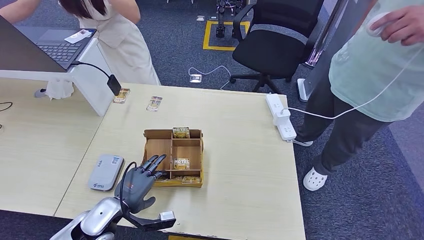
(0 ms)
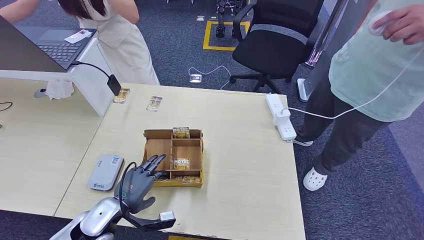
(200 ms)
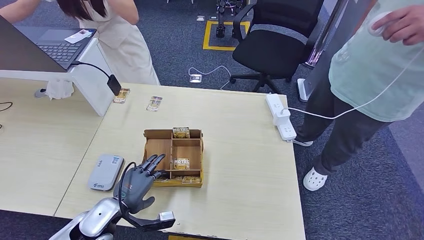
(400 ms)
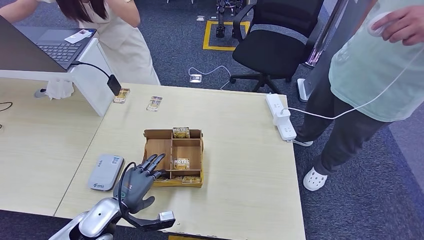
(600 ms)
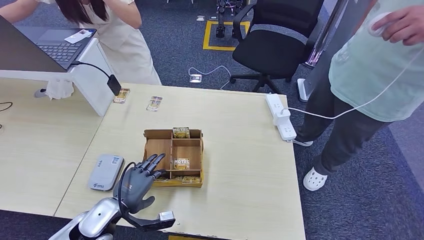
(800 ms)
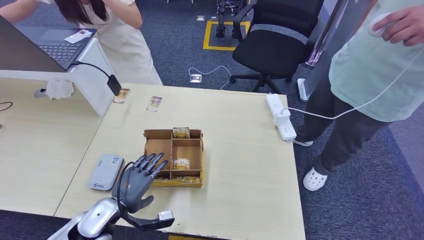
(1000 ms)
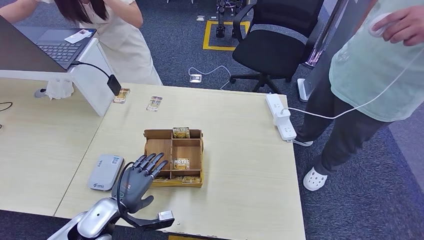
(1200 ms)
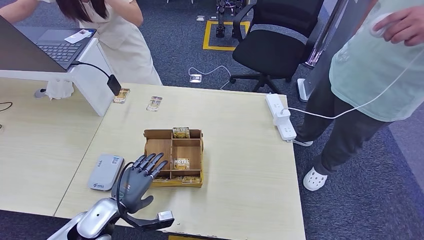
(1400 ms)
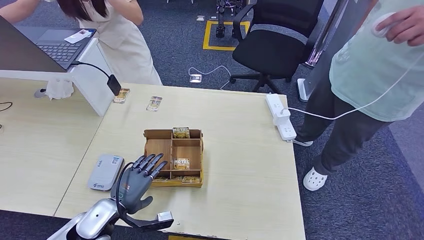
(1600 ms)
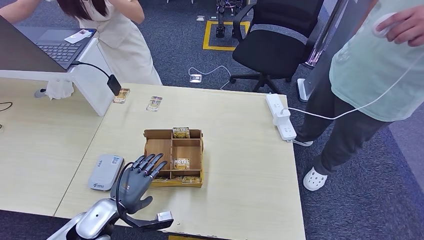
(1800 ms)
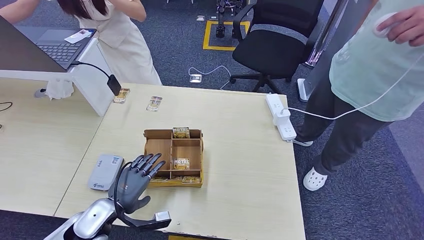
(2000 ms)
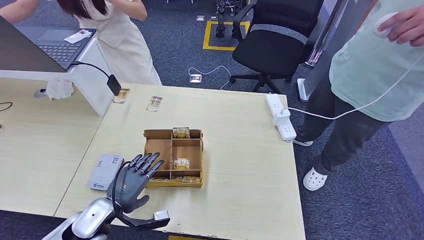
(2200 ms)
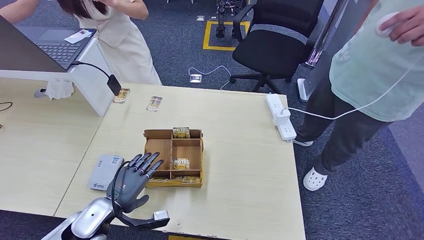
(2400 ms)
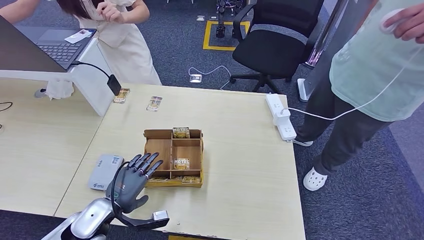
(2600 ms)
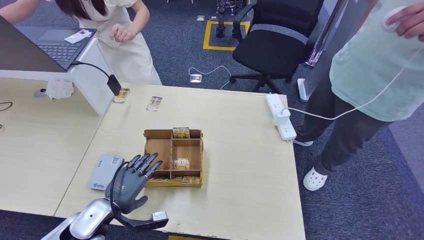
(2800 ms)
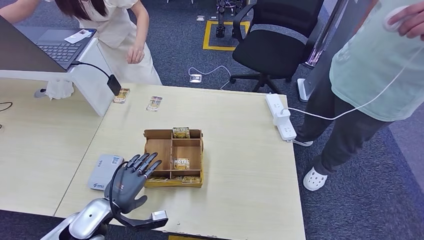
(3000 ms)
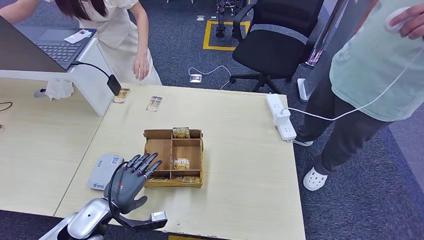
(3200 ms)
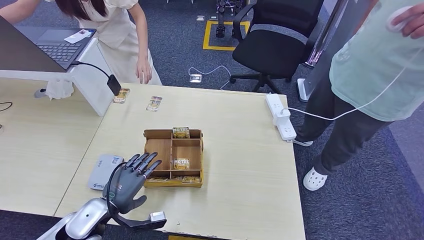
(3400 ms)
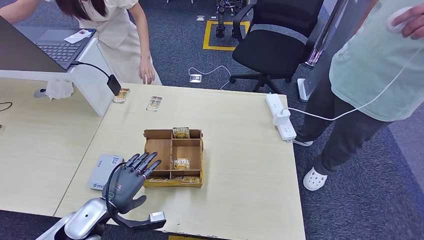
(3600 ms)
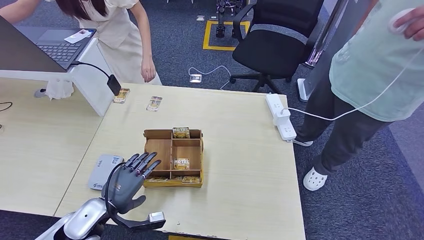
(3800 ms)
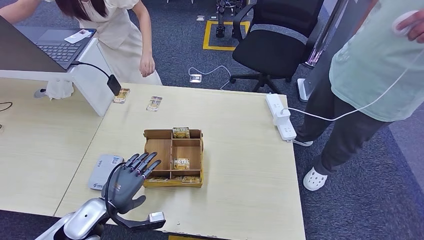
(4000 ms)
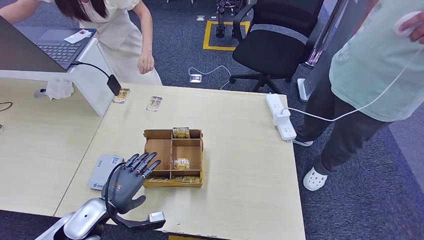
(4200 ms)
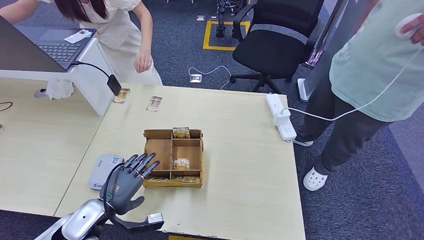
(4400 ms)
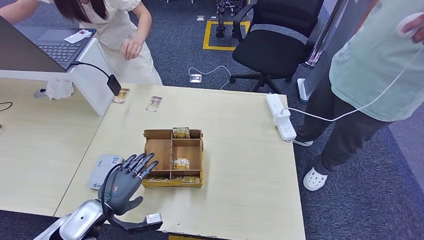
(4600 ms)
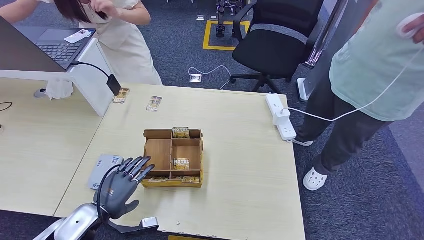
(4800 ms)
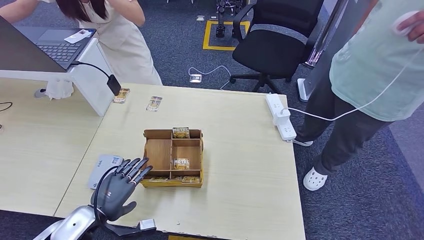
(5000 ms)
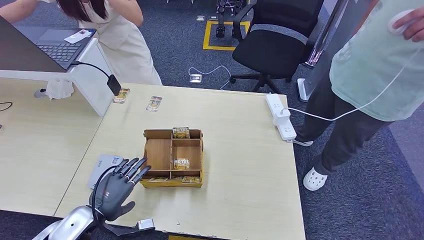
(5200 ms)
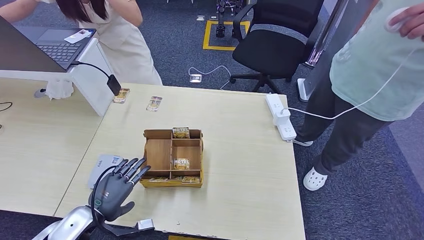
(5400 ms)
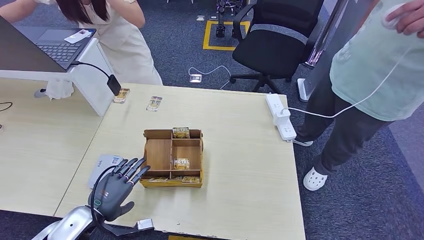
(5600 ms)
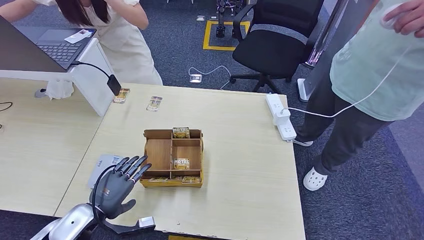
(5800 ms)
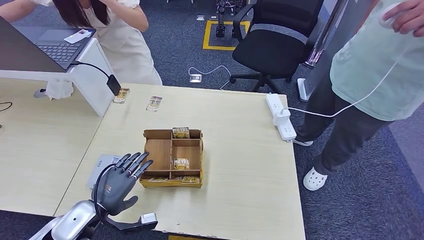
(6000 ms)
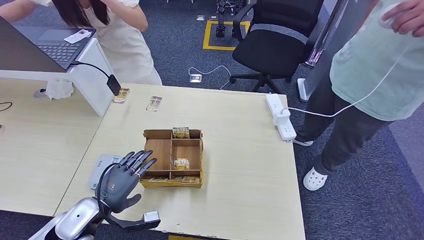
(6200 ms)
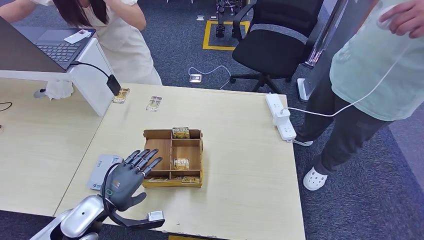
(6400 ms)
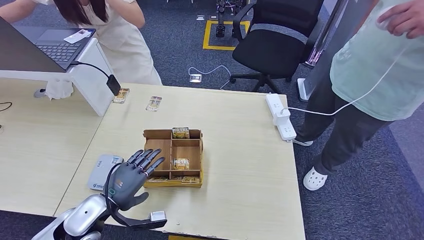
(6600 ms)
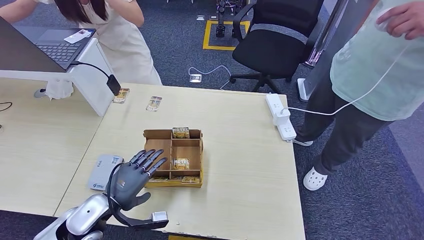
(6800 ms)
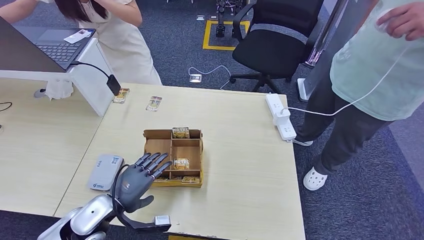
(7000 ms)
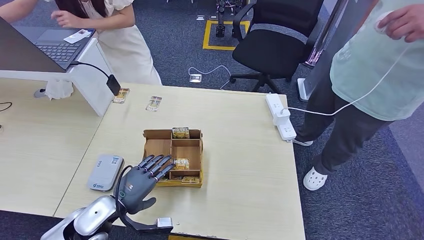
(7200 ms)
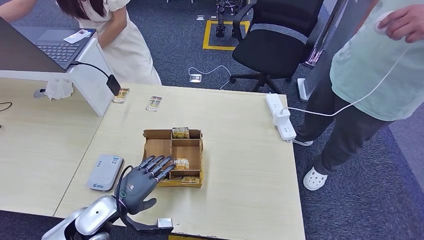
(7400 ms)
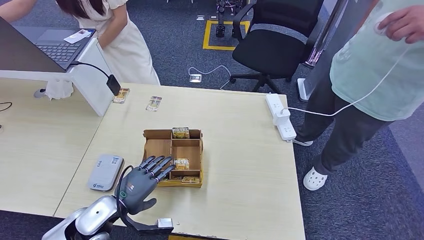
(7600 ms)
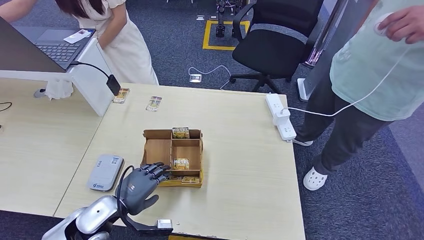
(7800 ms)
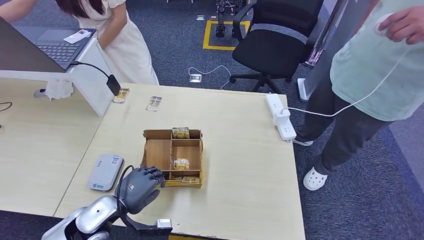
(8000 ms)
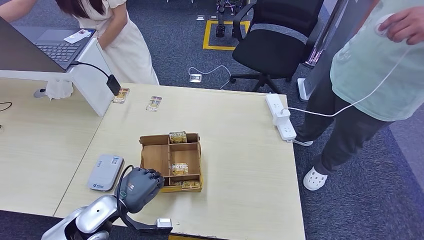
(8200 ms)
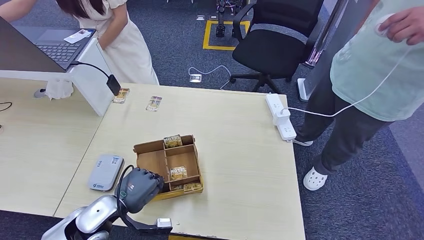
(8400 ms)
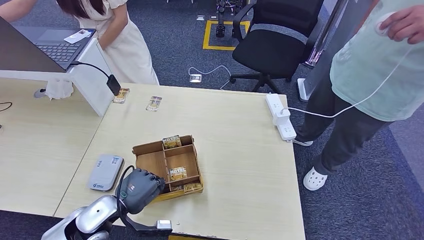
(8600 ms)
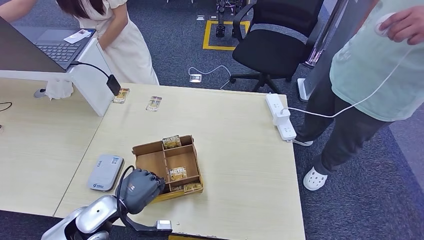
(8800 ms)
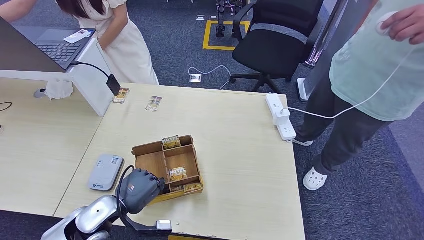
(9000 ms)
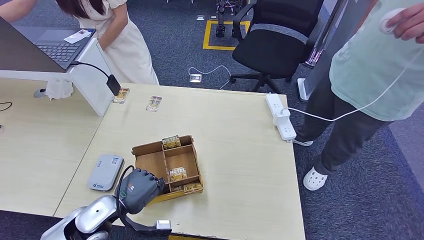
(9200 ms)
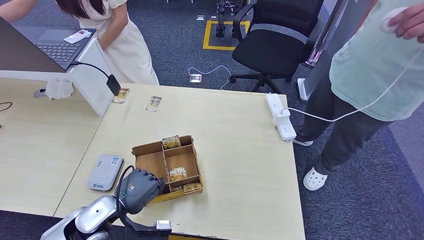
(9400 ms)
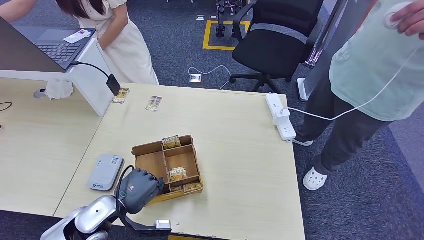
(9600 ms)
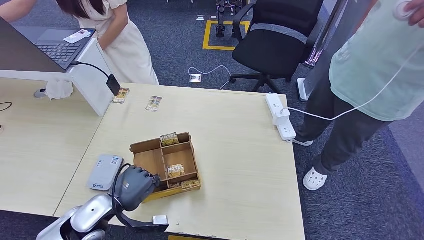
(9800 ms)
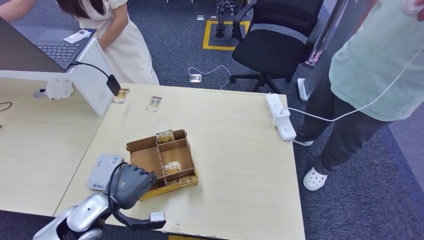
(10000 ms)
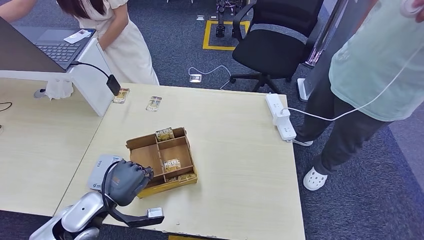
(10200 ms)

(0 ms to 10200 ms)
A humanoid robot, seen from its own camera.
0 ms - 1400 ms: Both hands stay put.
1400 ms - 3000 ms: The hands stay close to where they were, moving slightly.
3000 ms - 4400 ms: Both hands stay about where they are.
4400 ms - 7200 ms: The hands make only small movements.
7200 ms - 8800 ms: Both hands stay put.
8800 ms - 10200 ms: The hands move only a little.

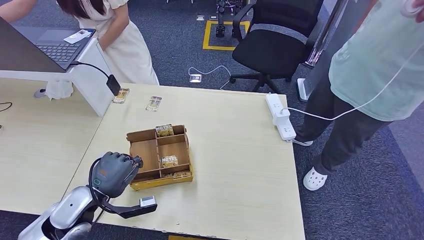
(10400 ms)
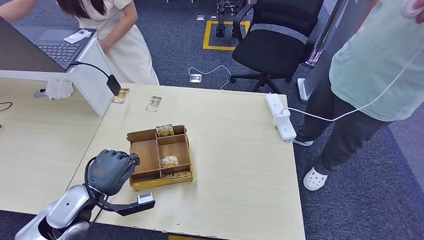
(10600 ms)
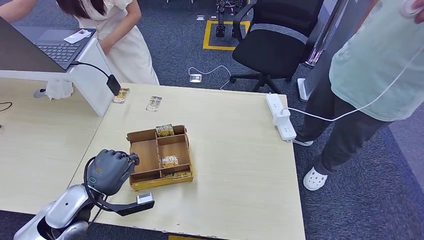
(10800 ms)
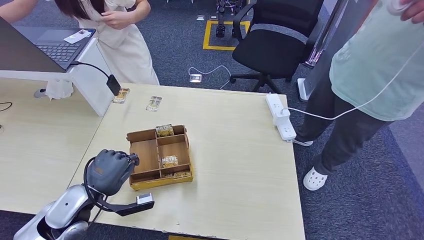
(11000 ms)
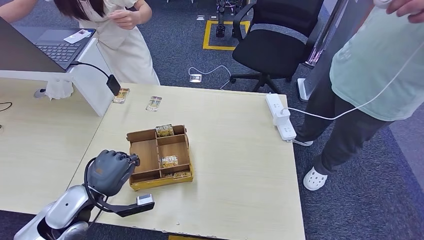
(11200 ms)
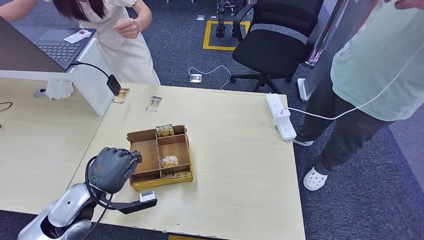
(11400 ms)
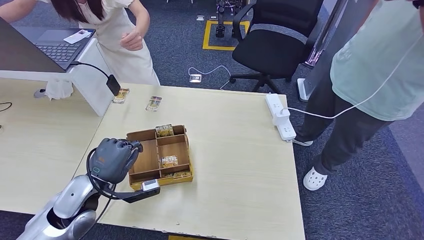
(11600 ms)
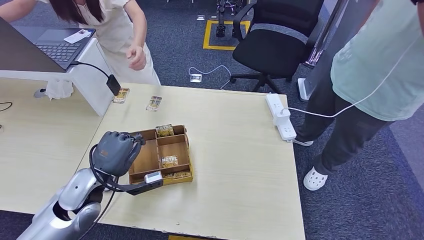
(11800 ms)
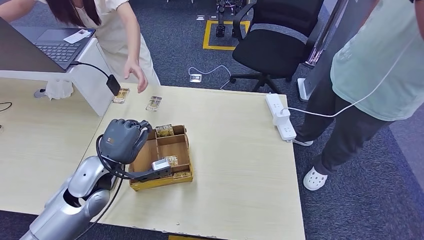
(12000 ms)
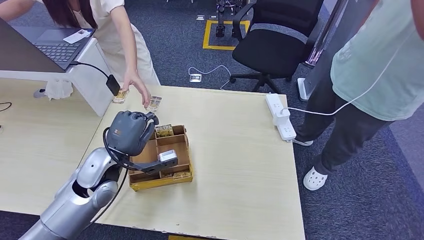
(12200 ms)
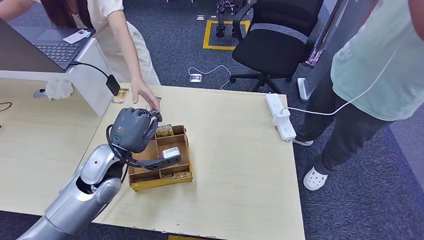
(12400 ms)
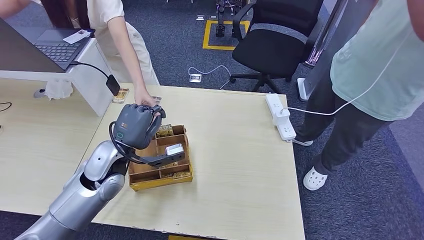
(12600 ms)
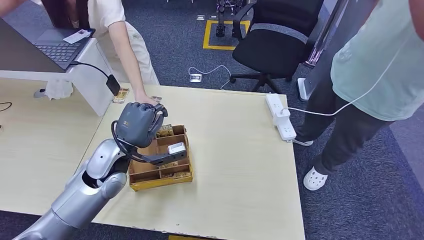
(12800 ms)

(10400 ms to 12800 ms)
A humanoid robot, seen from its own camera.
Step, 11600 ms - 12600 ms: Hand the room key to the person.
10400 ms - 11600 ms: The hands stay close to where they were, moving slightly.
11600 ms - 12800 ms: The left hand shifts about 10 cm forward and to the right.
